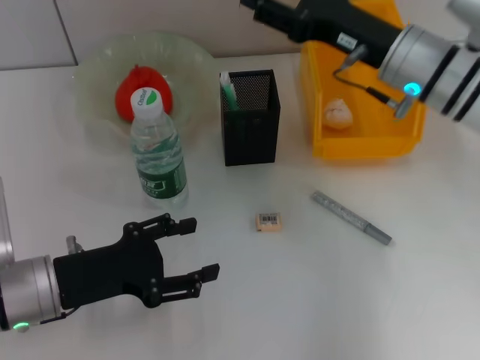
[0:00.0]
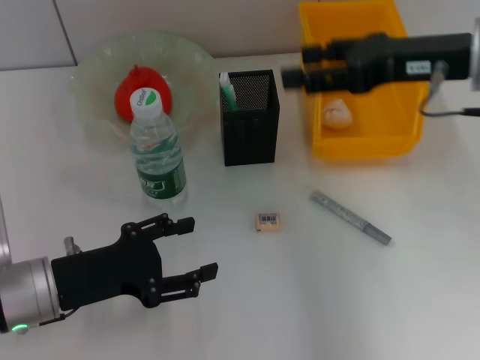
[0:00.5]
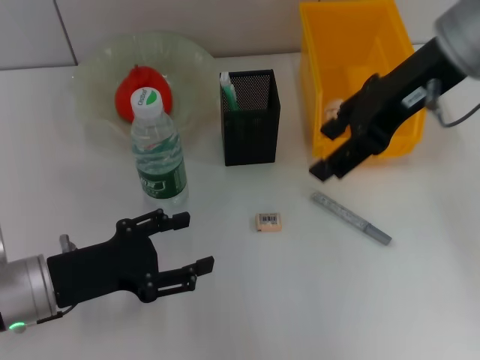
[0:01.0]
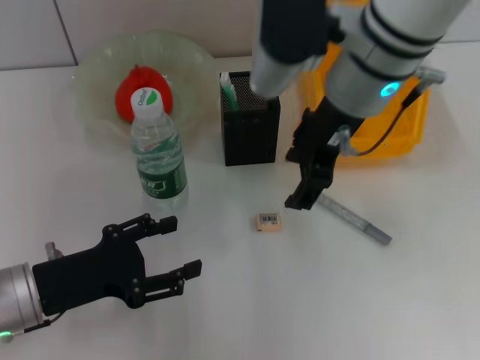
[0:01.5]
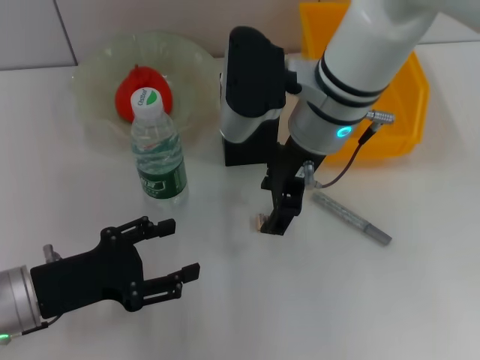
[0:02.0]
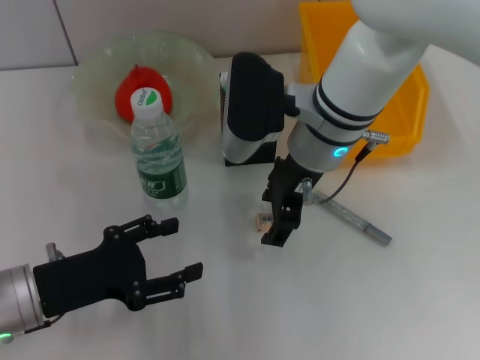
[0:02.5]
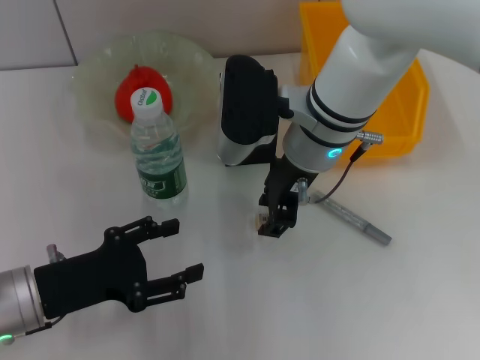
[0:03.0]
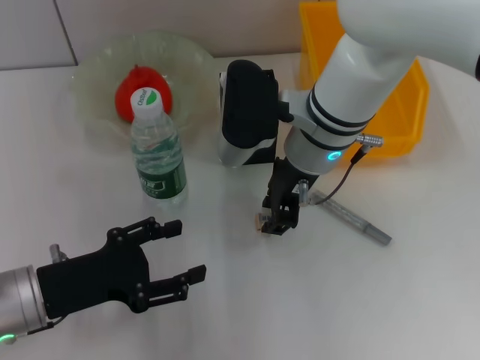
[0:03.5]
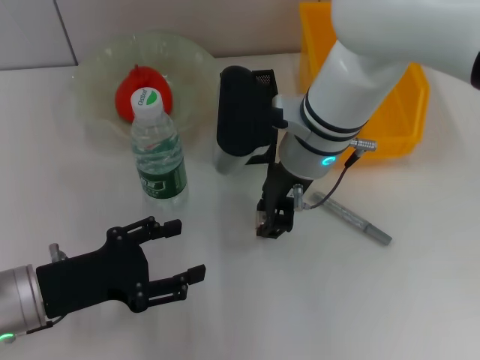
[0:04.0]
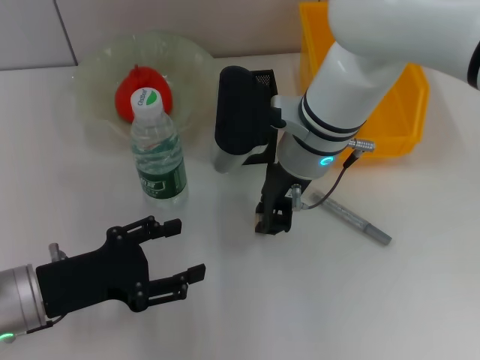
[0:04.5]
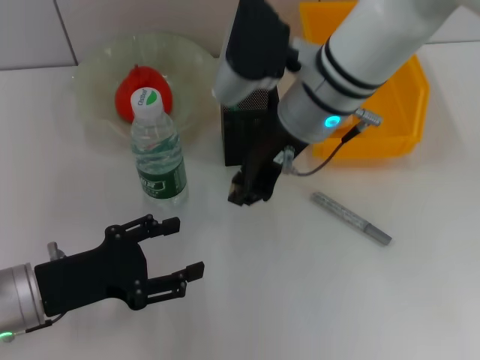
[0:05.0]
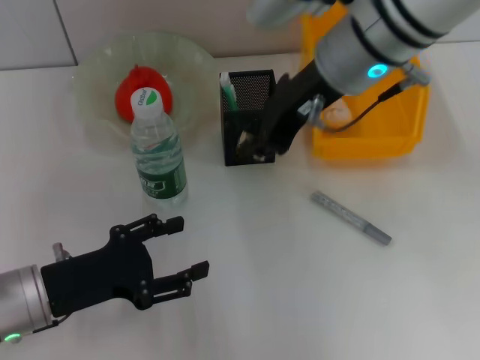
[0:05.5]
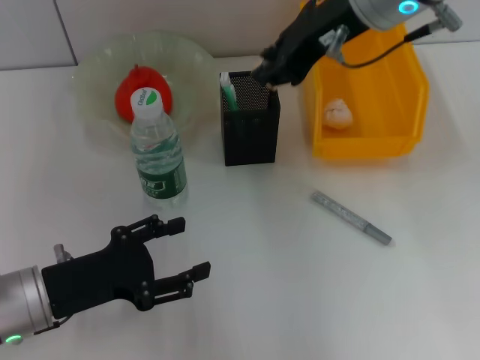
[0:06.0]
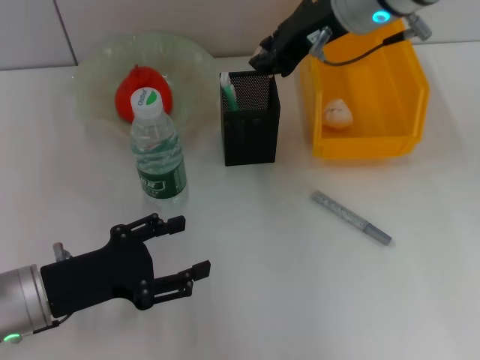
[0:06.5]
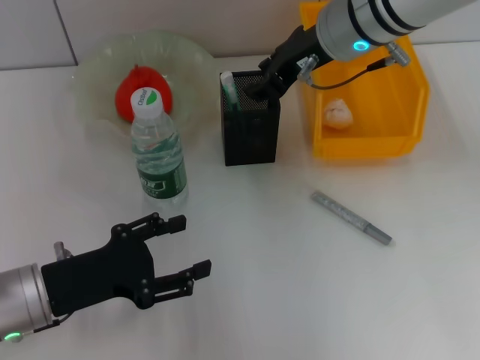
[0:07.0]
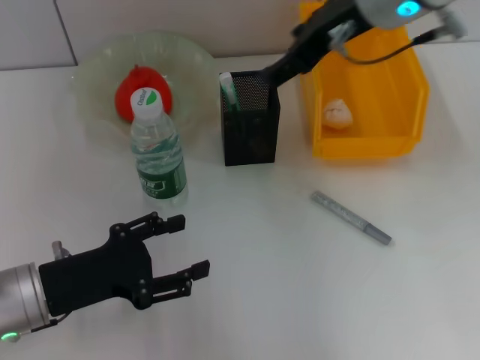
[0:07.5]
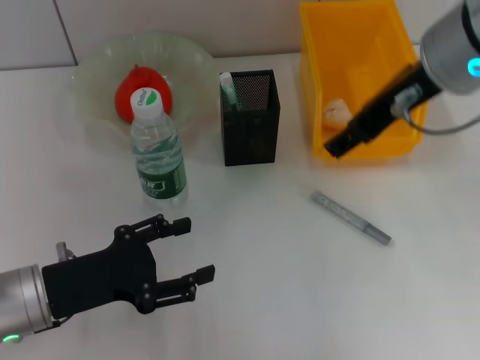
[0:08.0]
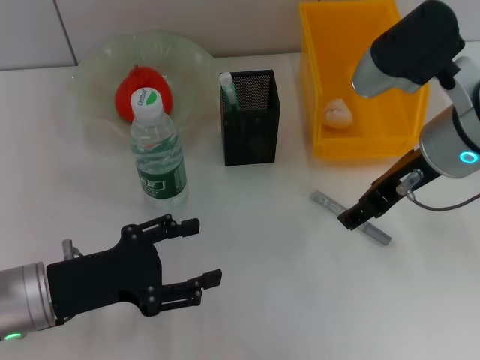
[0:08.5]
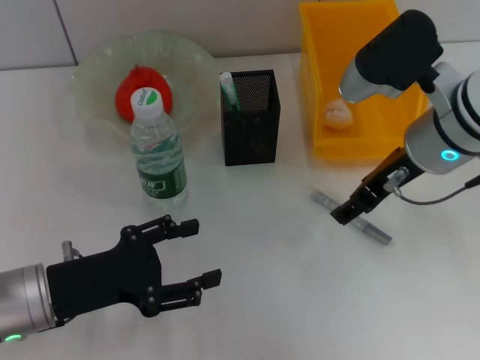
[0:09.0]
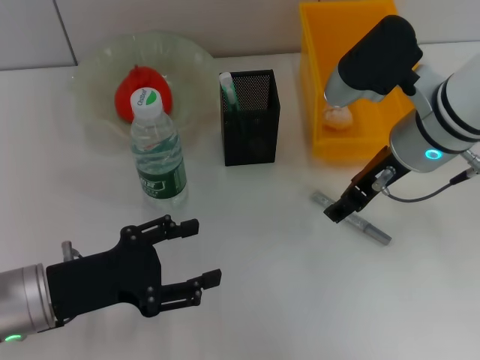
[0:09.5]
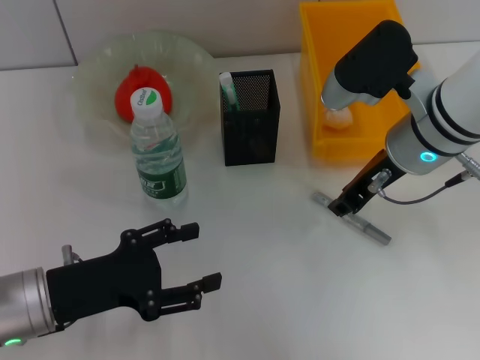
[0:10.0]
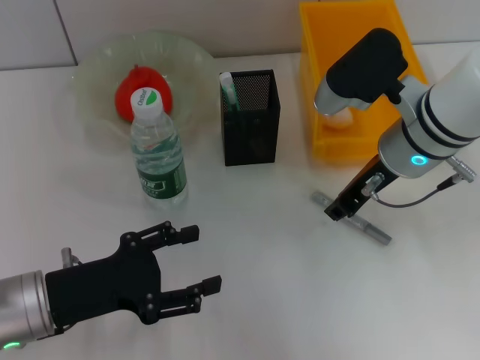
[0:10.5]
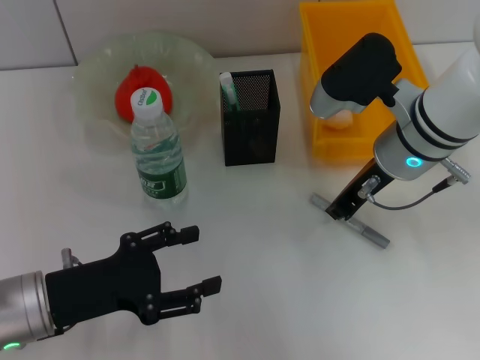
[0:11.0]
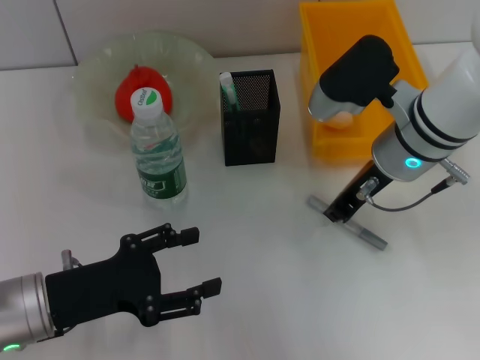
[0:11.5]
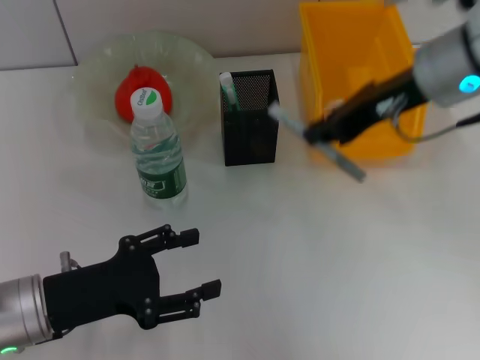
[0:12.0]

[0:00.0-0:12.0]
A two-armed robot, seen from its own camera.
Step, 0:00.5 to 0:04.0: Grab the eraser with the right hand.
Step, 0:04.5 to 0:06.5: Put the eraser into the pen holder with the right hand.
0:00.0 to 0:02.0: The right gripper goes roughly 10 cm to the left.
0:02.0 to 0:04.0: The right gripper closes.
0:04.0 to 0:06.0: The right gripper shifts about 15 cm upward.
0:06.0 to 0:08.0: The right gripper is displaced backward by some 5 cm, and opens.
0:08.0 to 0:10.0: The right gripper heads downward, covering approximately 10 cm, and closes its fingers.
0:10.0 to 0:12.0: The right gripper moves upward, roughly 10 cm, and closes up.

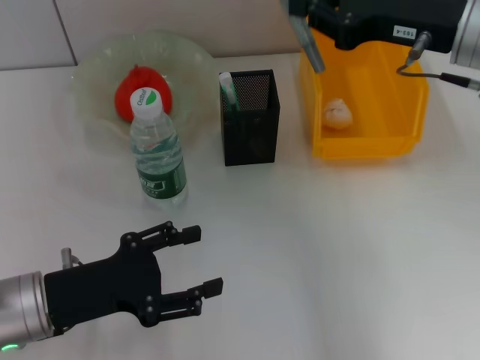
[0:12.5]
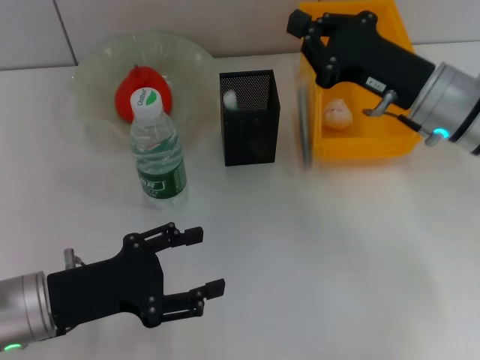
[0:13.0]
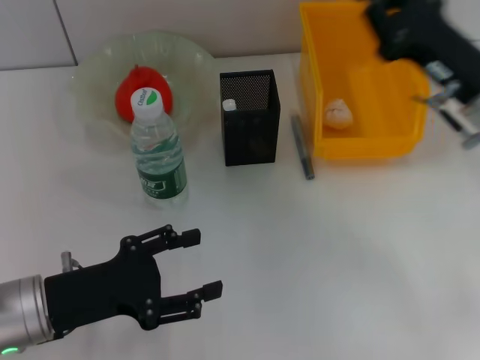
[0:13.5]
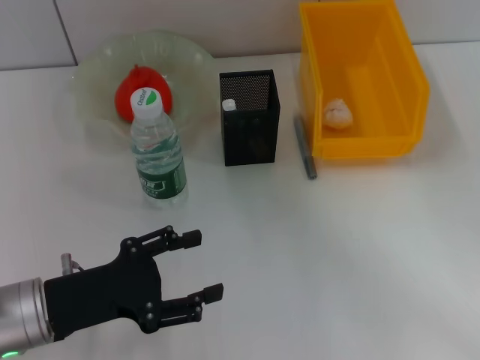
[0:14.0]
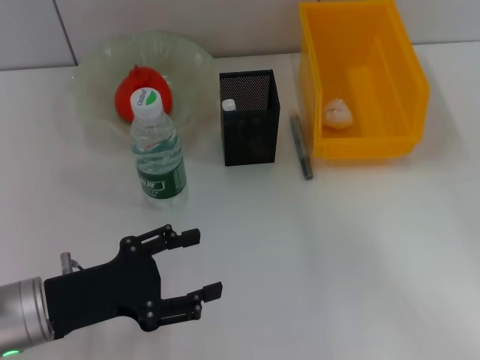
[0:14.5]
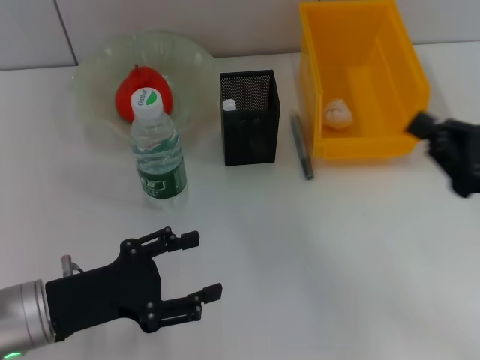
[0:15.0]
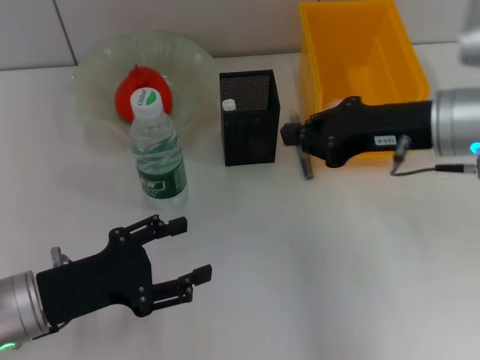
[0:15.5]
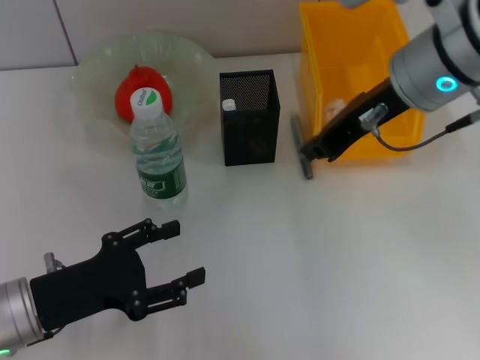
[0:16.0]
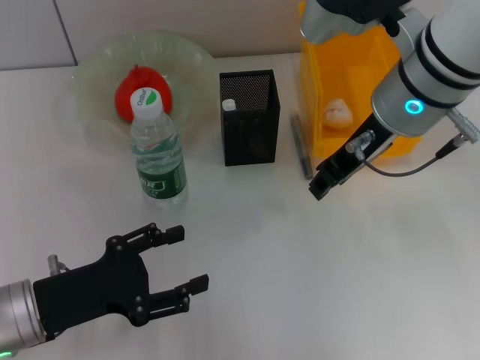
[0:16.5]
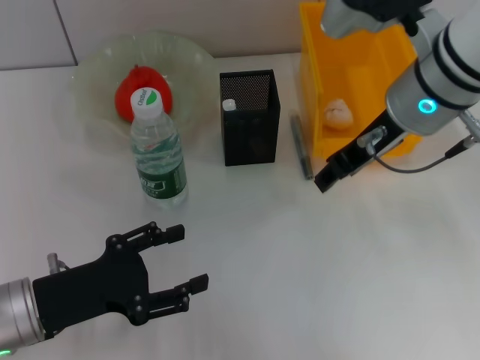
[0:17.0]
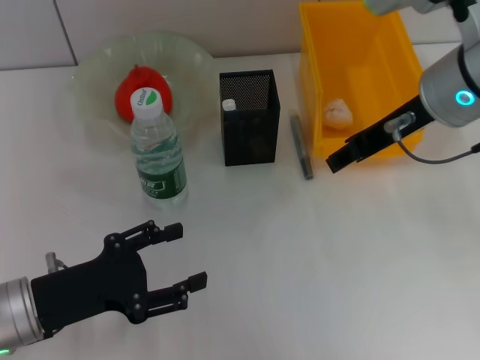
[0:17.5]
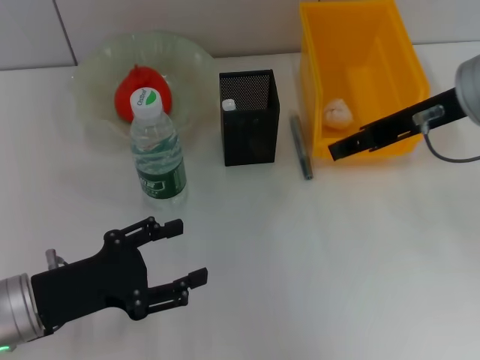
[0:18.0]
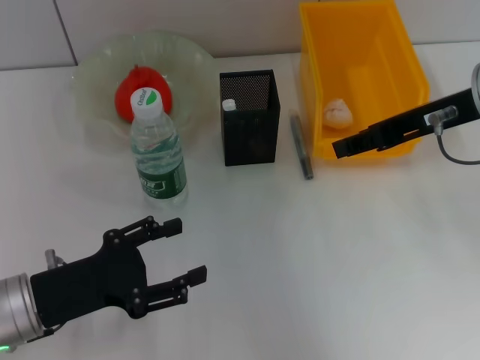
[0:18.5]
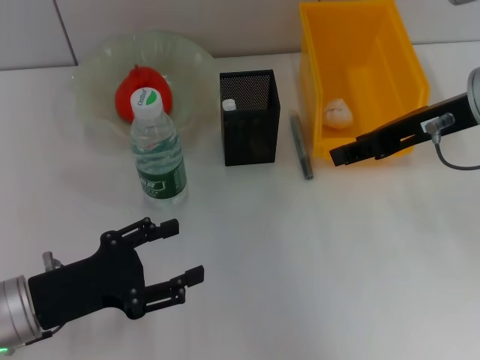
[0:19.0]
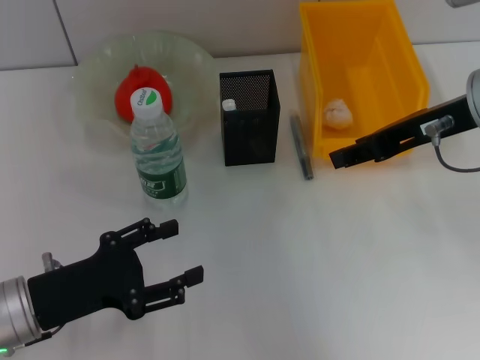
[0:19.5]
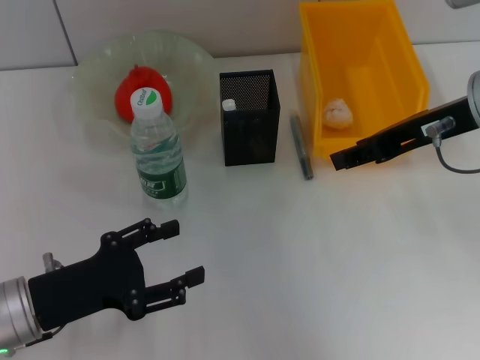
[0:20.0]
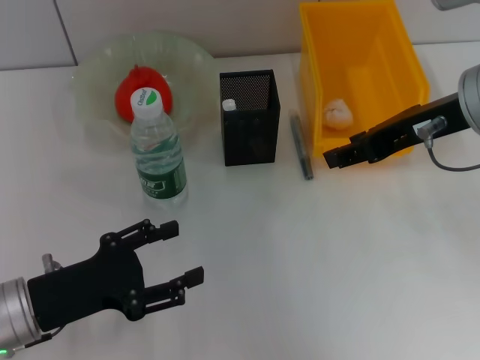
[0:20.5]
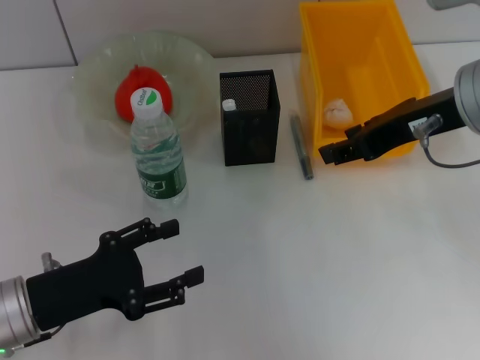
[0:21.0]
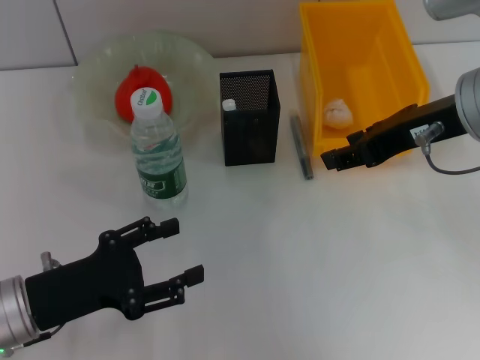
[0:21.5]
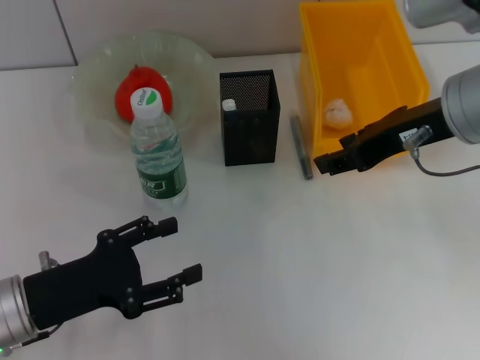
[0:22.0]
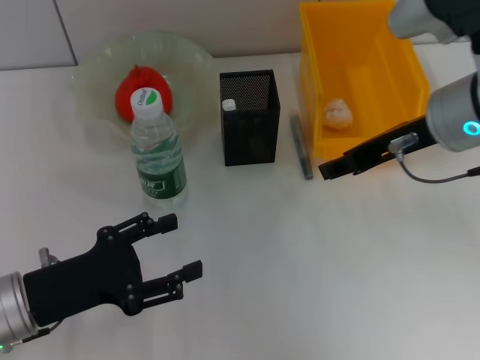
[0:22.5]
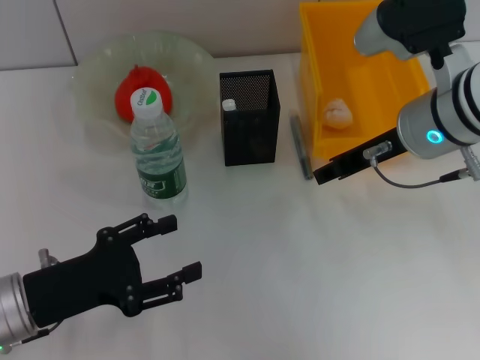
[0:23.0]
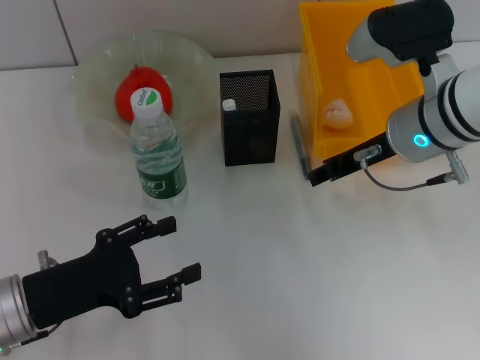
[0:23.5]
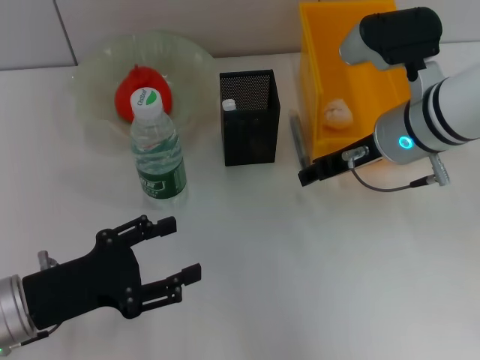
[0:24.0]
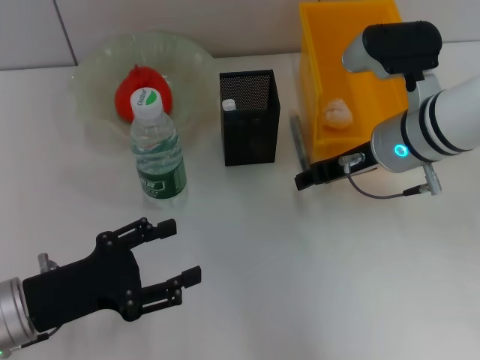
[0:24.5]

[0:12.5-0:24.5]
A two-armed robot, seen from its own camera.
0:12.5 to 0:14.5: The right gripper shifts some 25 cm backward, downward and to the right.
0:14.5 to 0:16.5: The right gripper moves to the left, forward and upward, some 30 cm.
0:16.5 to 0:18.5: The right gripper is displaced to the right by roughly 10 cm, and opens up.
0:18.5 to 0:22.5: The grippers move only a little.
0:22.5 to 0:24.5: The right gripper travels downward by some 5 cm.

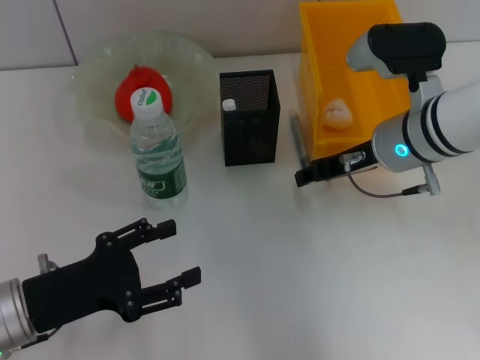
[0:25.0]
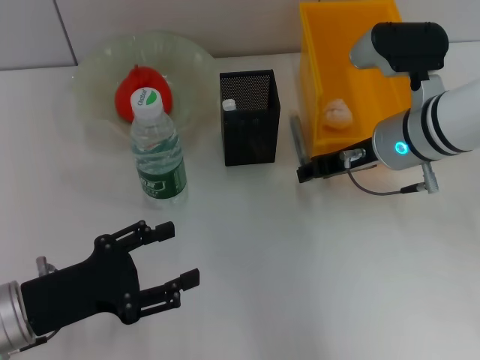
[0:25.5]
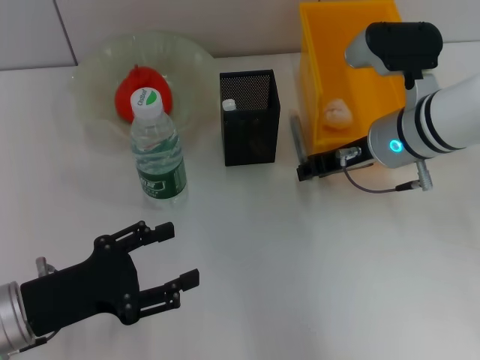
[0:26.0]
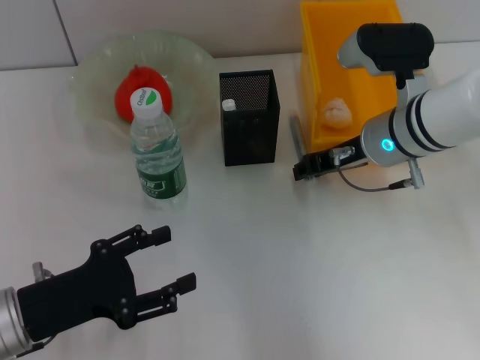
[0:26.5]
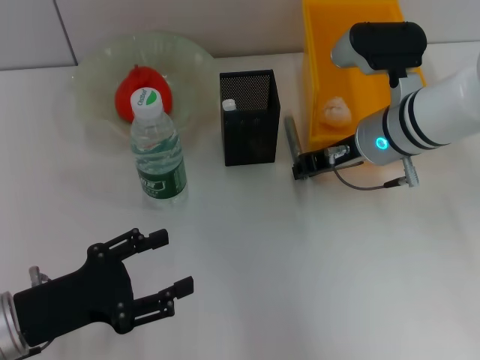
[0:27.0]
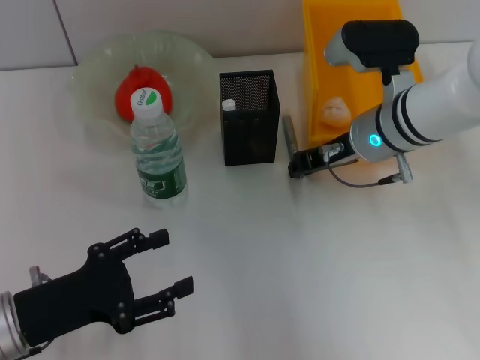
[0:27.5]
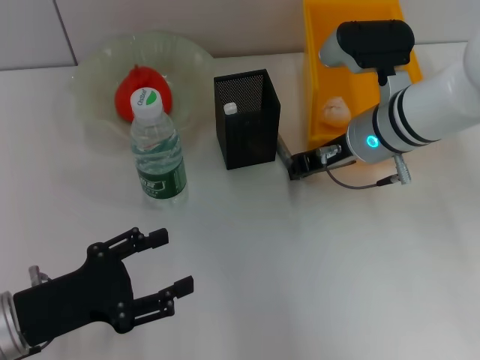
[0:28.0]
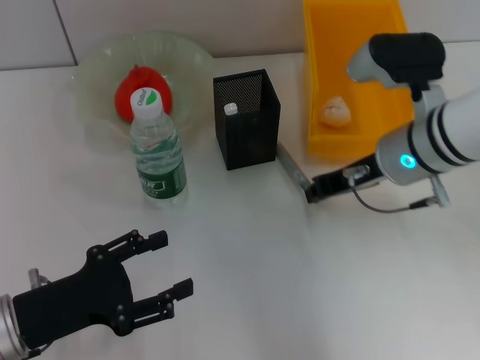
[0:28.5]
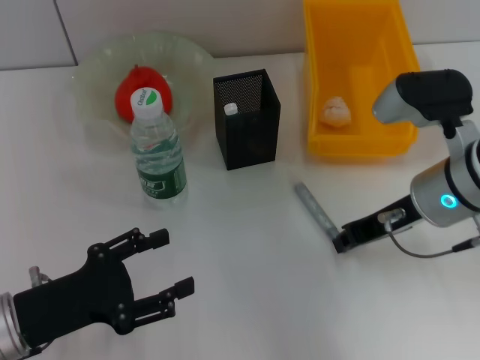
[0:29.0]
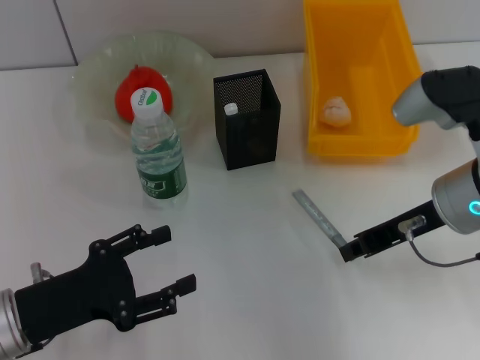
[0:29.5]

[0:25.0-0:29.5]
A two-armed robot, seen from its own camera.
Step, 0:25.0 to 0:28.0: Grab the gray glue with the right hand.
0:25.0 to 0:27.0: There are only small adjustments of the grippers.
0:27.0 to 0:29.5: The right gripper shifts approximately 10 cm backward.
